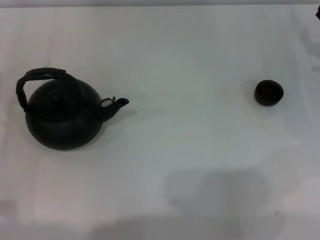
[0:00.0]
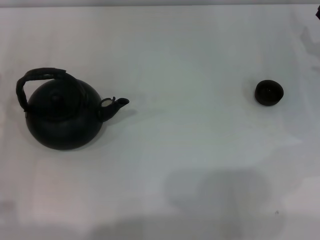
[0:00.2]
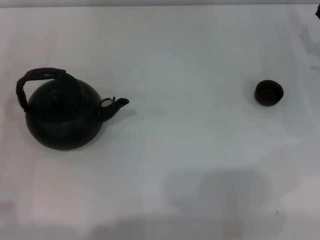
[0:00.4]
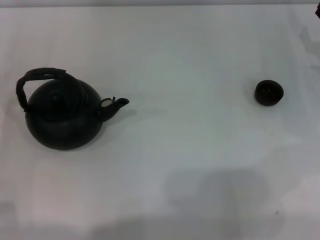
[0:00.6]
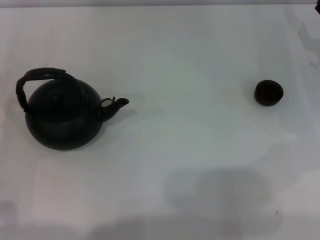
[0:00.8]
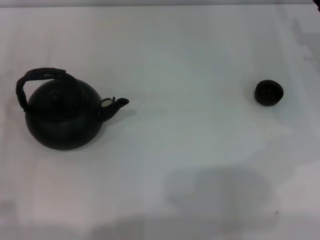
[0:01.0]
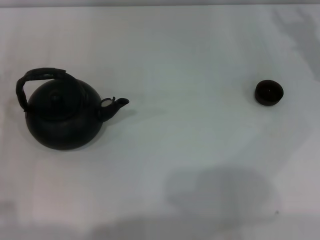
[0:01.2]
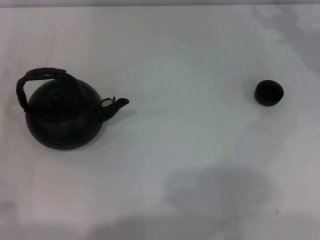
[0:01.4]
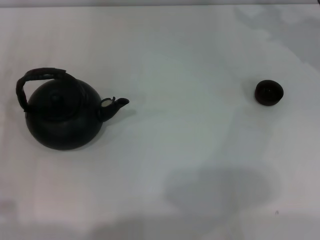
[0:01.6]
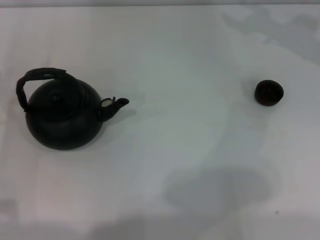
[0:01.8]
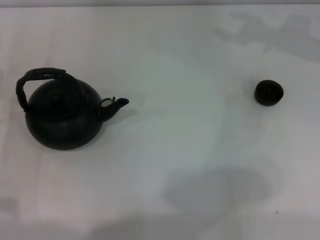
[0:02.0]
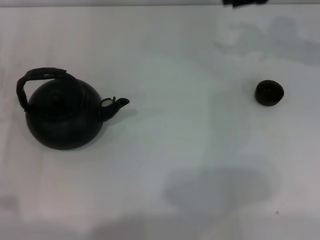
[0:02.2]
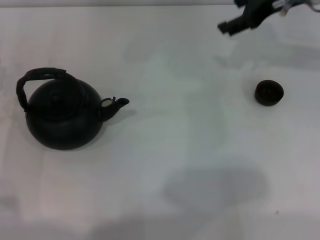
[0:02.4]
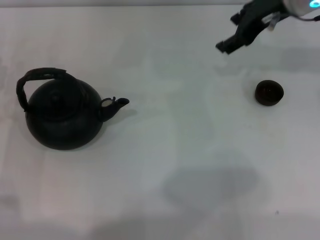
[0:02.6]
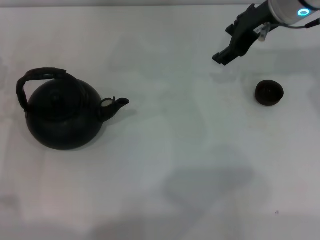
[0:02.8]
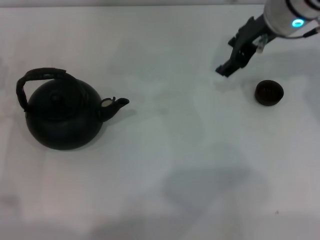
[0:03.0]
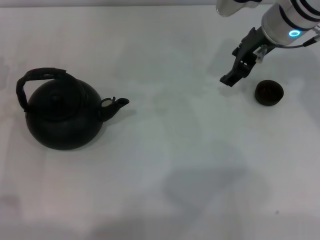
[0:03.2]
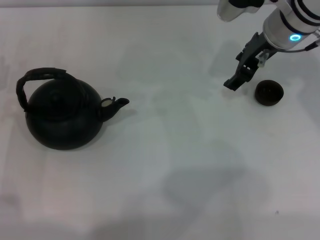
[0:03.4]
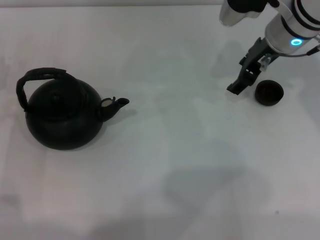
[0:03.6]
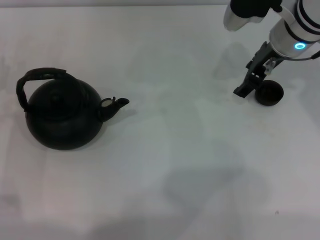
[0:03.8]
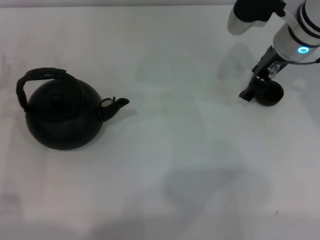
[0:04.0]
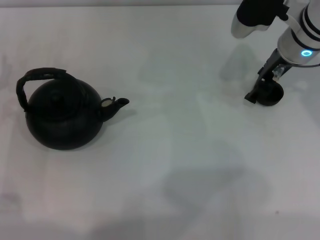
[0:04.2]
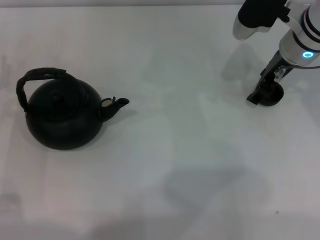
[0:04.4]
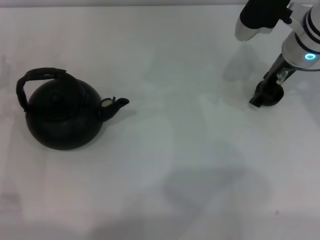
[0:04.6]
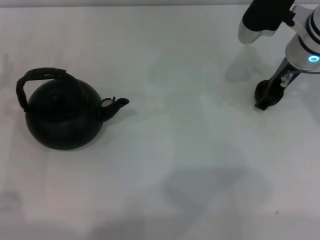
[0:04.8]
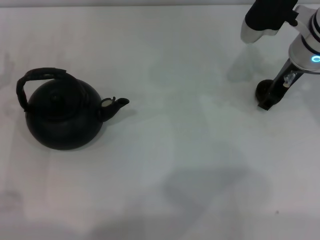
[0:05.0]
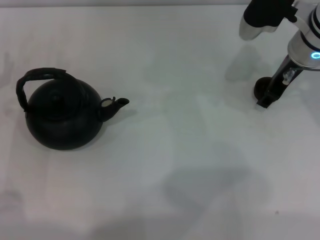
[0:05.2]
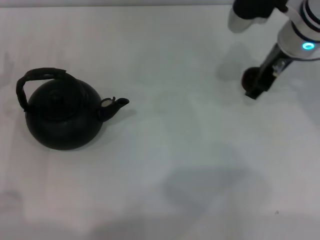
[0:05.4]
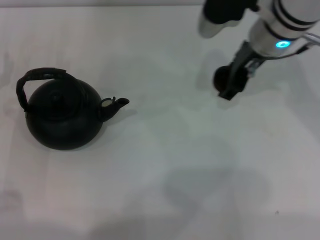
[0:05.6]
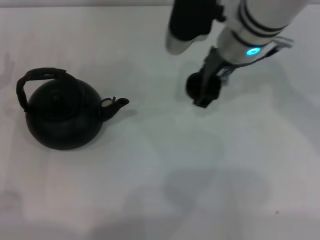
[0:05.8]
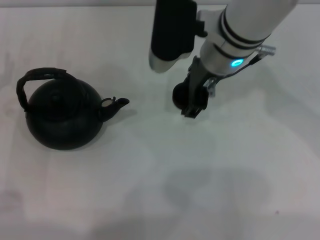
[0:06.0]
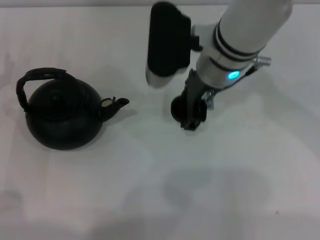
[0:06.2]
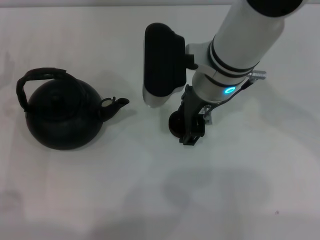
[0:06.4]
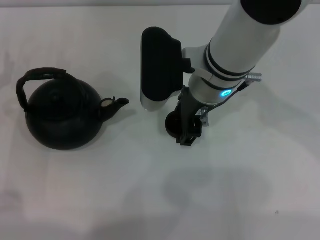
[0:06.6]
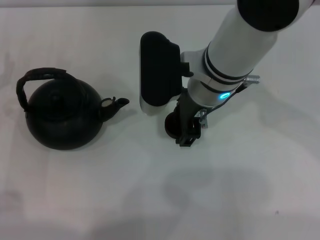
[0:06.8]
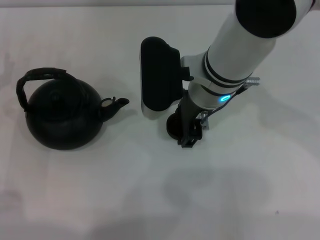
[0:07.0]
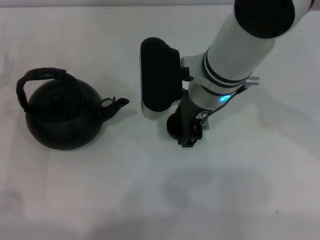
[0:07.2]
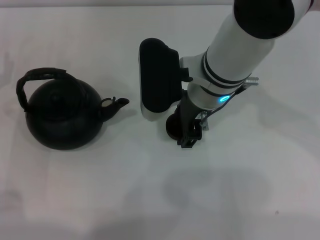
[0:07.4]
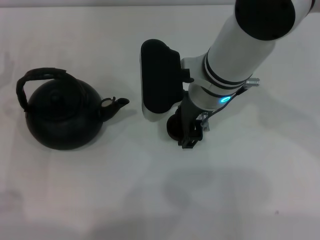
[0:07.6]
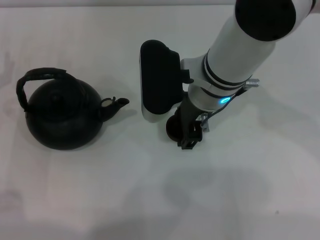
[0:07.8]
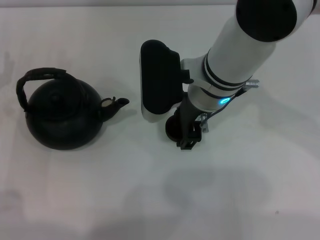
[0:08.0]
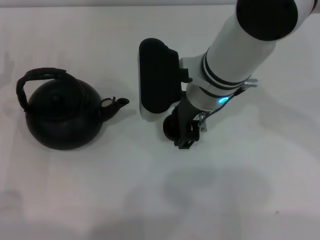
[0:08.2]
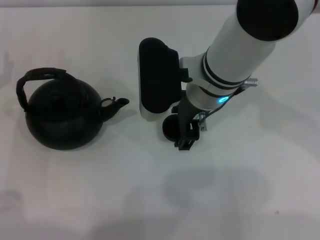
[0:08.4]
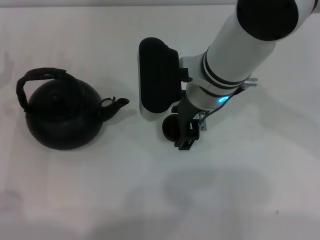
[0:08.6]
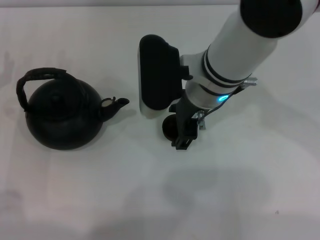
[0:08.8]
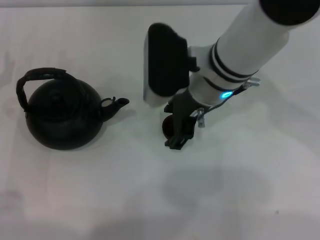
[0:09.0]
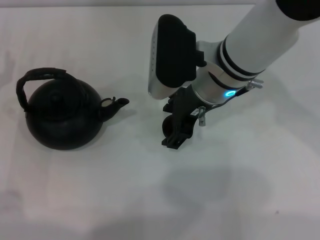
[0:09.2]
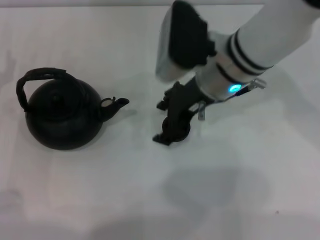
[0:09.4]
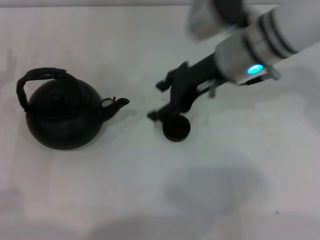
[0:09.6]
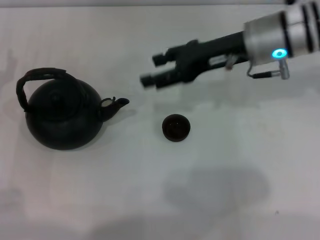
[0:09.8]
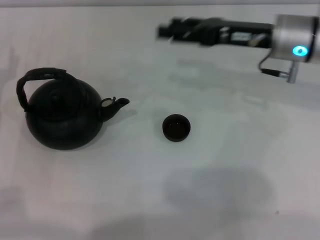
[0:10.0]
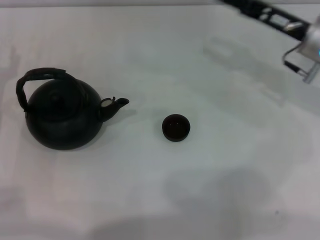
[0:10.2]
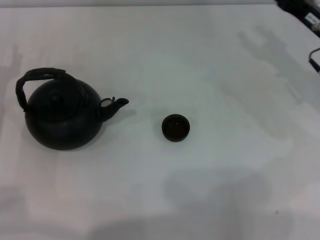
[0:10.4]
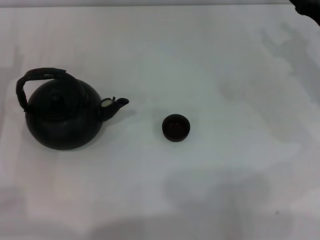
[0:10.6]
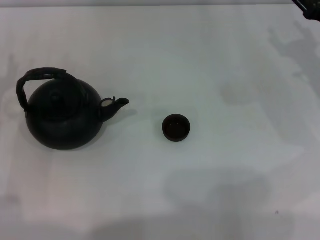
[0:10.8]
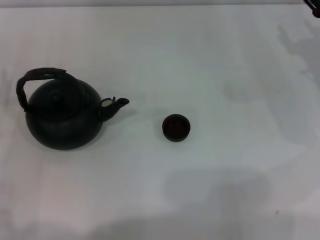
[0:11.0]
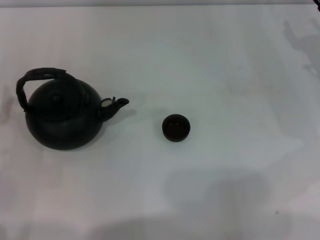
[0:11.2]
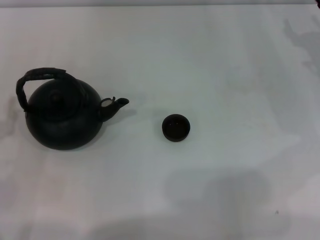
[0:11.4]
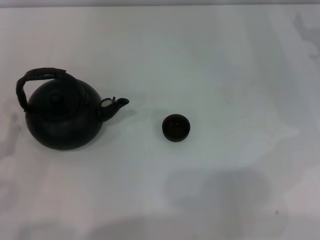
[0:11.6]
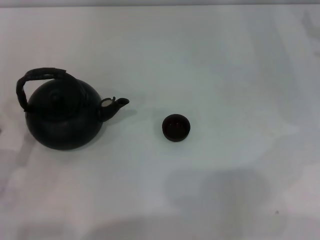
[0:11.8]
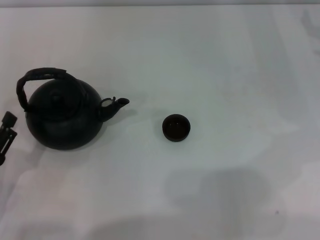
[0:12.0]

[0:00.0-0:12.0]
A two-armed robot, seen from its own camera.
Task of the whole recording: Grasp the handle of the teapot with one hand and pour tea into the teacup.
Step, 0:00.0 to 0:05.2: Pick up the teacup with the right gripper.
Step, 0:05.4 to 0:09.6: Place the teacup in the center of view with the right gripper.
0:01.6 to 0:03.0: The right gripper moves to the left, approximately 10 cm.
0:03.0 to 0:04.4: The right gripper moves about 5 cm.
0:04.4 to 0:06.0: The right gripper shifts about 10 cm to the left.
0:06.0 to 0:07.6: The grippers move only a little.
0:07.6 to 0:09.0: The right gripper opens.
0:09.0 to 0:10.4: The right gripper heads to the right, covering some 20 cm.
0:10.4 to 0:12.0: The right gripper travels to the right by approximately 5 cm. The left gripper travels backward by approximately 15 cm.

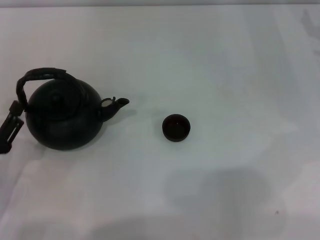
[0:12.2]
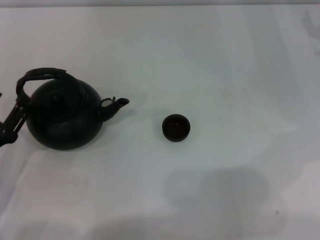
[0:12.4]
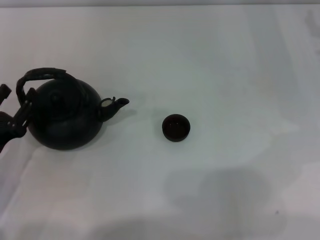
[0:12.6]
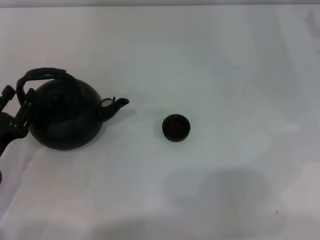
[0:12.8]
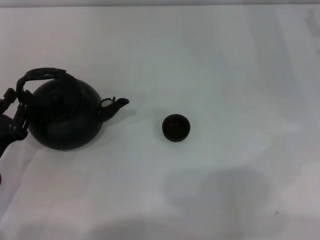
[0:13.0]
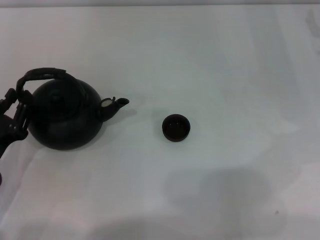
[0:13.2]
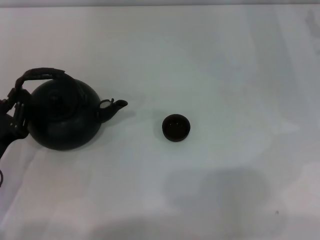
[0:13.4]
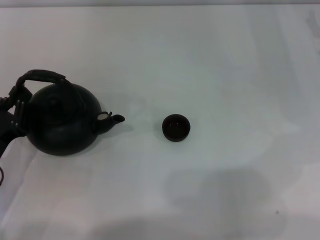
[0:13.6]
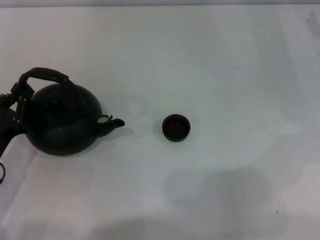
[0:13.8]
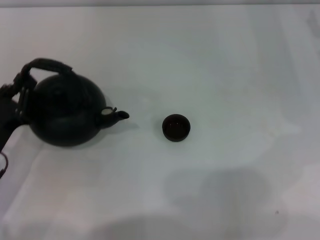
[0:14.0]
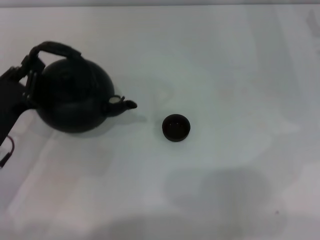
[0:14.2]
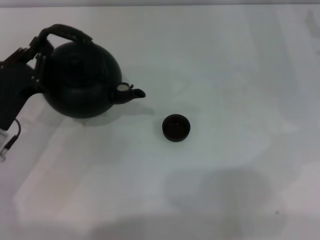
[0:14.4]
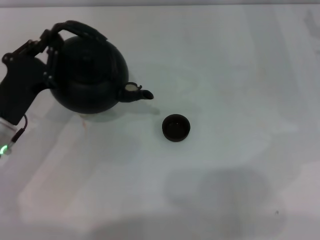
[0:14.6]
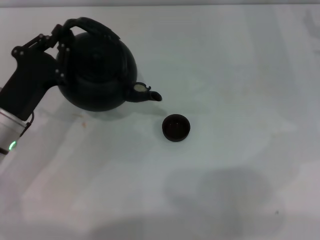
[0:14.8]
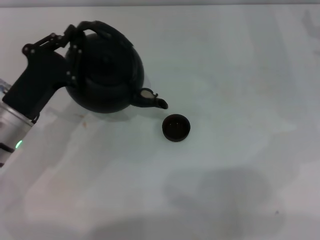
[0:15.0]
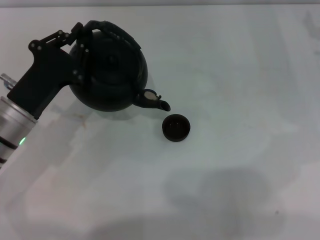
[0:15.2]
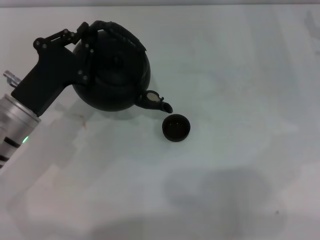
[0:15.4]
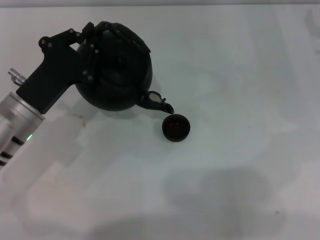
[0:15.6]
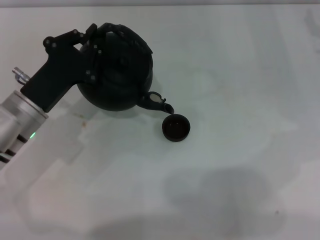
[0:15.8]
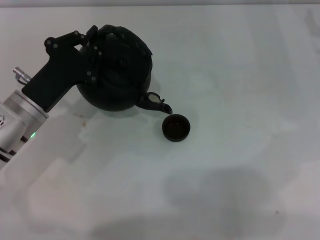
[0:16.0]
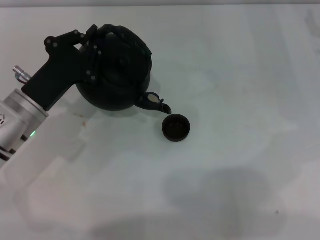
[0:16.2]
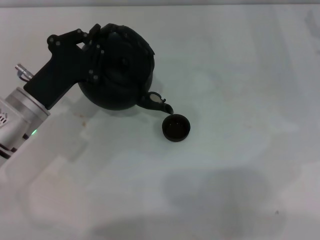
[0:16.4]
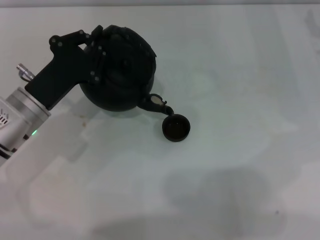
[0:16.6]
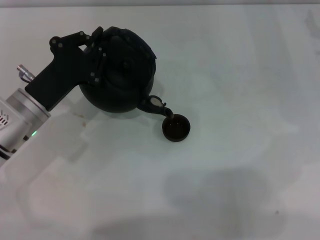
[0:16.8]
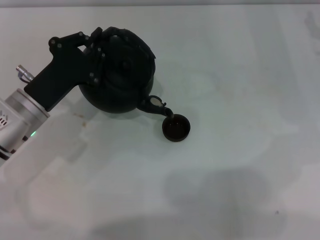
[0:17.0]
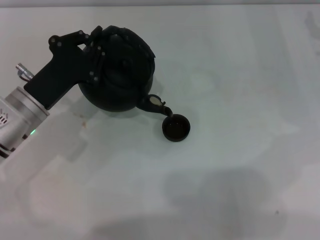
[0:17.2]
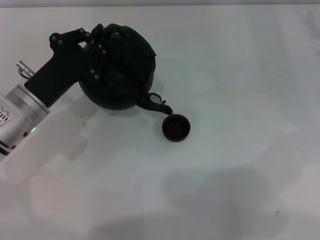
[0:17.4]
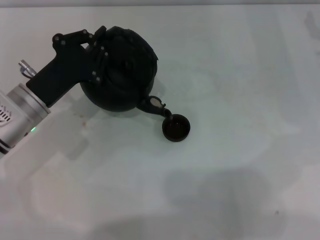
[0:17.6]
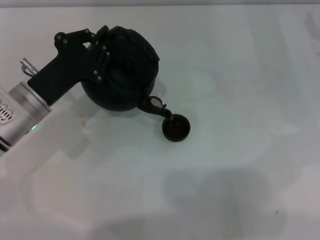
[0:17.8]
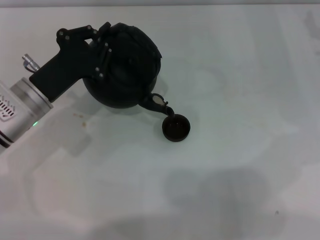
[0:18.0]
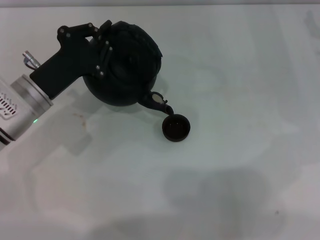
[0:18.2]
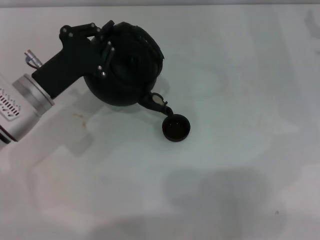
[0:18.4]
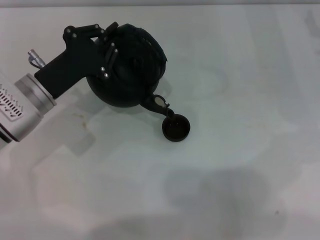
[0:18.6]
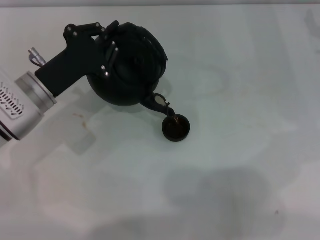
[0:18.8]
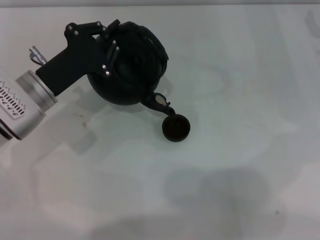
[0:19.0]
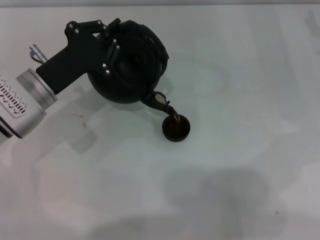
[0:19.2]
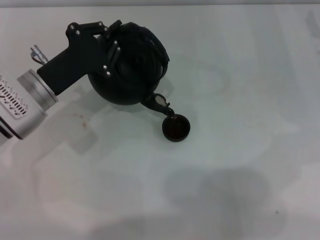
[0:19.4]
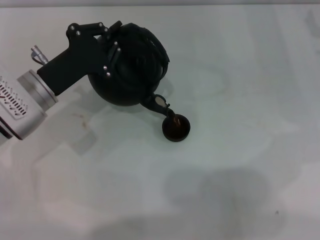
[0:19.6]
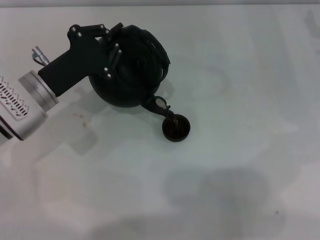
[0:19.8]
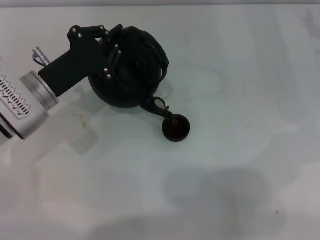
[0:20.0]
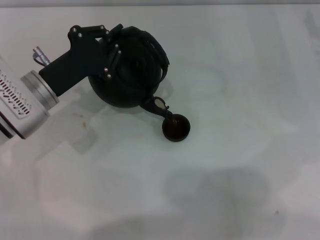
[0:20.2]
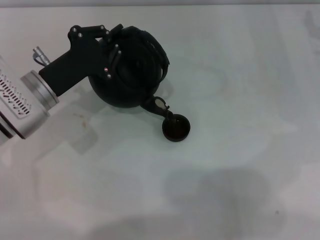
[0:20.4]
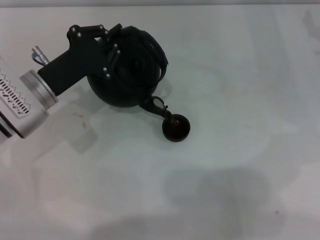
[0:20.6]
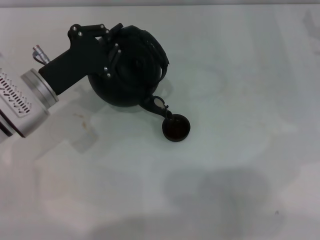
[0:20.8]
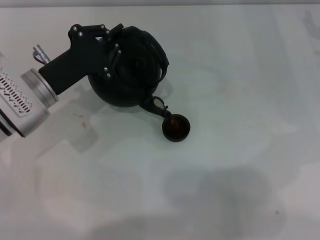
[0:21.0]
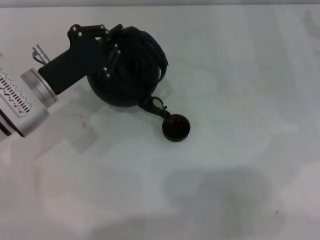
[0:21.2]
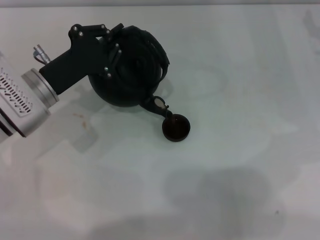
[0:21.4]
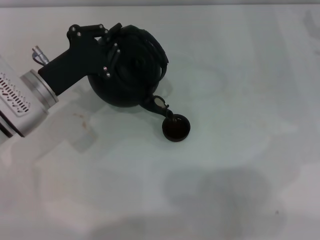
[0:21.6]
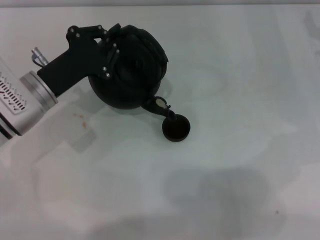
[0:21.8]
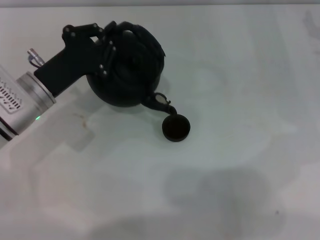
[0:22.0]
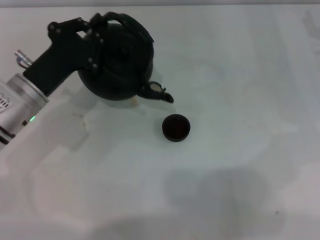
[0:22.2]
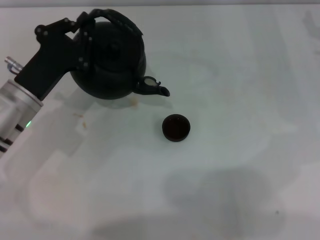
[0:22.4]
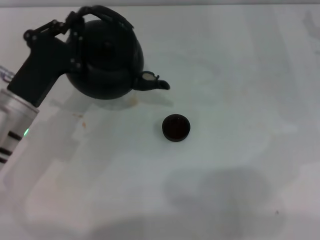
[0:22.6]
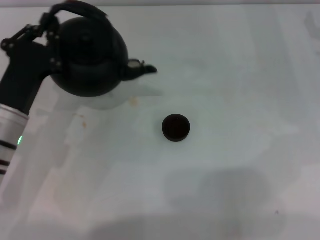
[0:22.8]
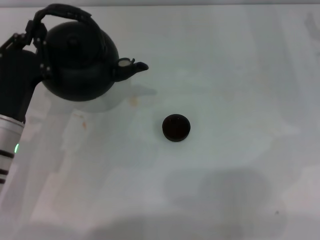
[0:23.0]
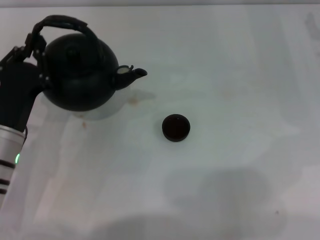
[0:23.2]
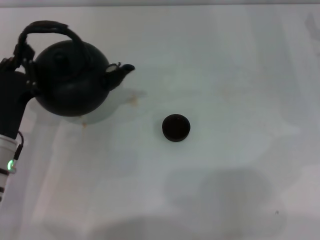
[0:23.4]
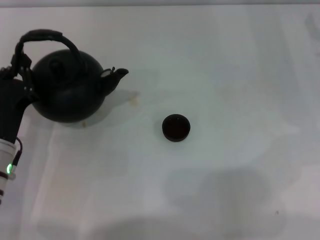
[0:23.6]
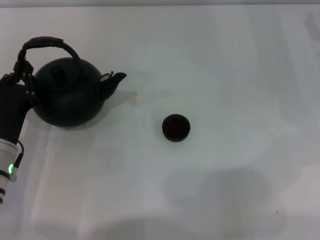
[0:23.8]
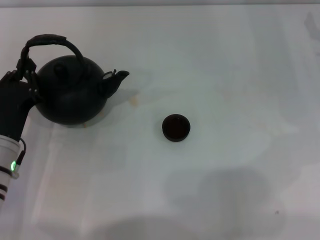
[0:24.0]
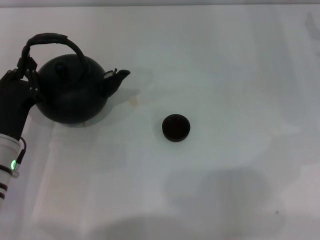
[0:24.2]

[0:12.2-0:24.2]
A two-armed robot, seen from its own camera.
Task of the whole recording: Grasp the handle of the teapot with one hand and pour tea into the teacup.
Step, 0:14.4 to 0:22.2: Pour tea into the teacup with the left gripper.
0:12.2 to 0:13.8: The left gripper closes.
0:13.8 to 0:15.2: The left gripper shifts roughly 10 cm forward and to the right.
0:15.2 to 0:18.2: The grippers move only a little.
0:18.2 to 0:19.8: The grippers move only a little.
0:19.8 to 0:21.2: The two grippers keep their place.
0:22.6 to 0:24.2: The left gripper moves about 5 cm.
